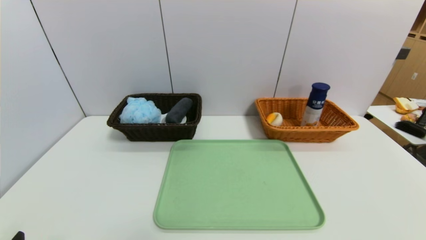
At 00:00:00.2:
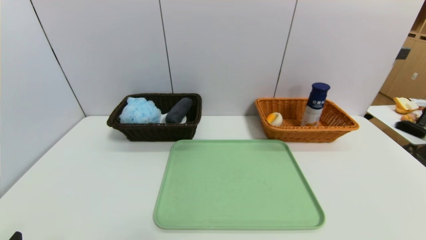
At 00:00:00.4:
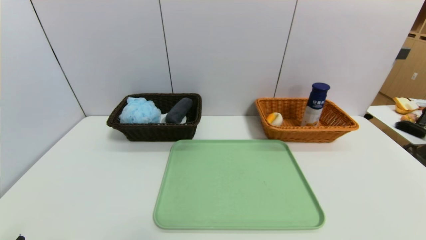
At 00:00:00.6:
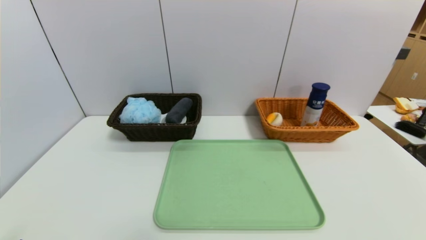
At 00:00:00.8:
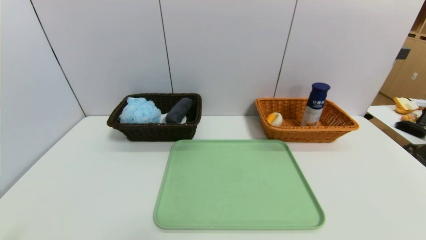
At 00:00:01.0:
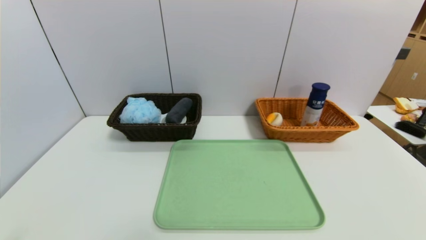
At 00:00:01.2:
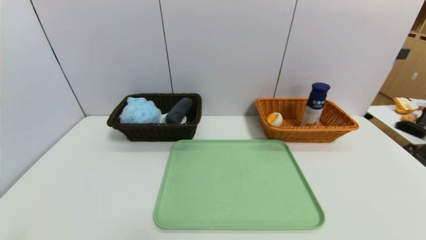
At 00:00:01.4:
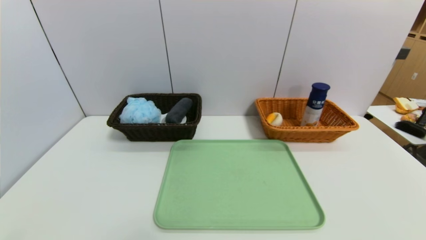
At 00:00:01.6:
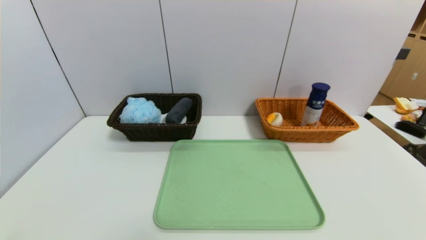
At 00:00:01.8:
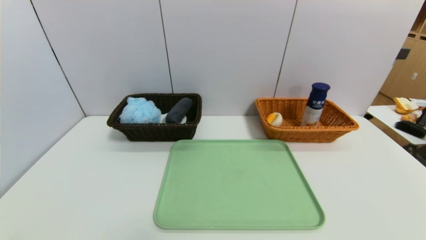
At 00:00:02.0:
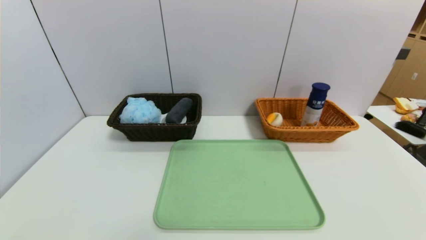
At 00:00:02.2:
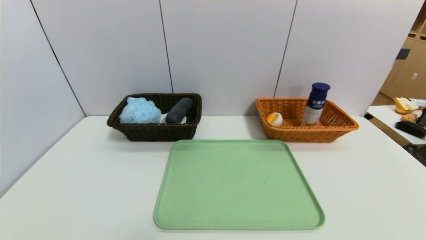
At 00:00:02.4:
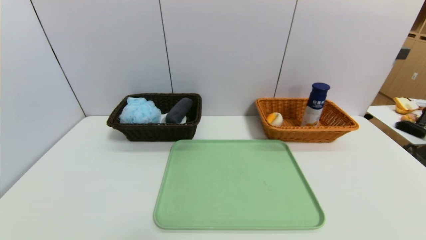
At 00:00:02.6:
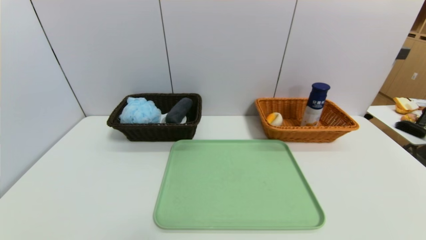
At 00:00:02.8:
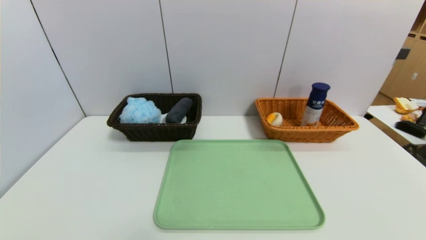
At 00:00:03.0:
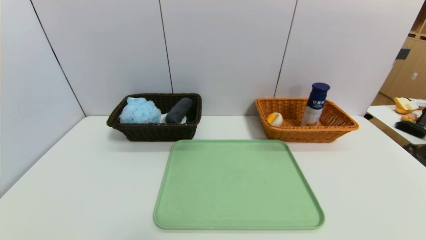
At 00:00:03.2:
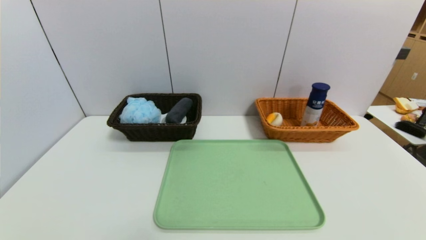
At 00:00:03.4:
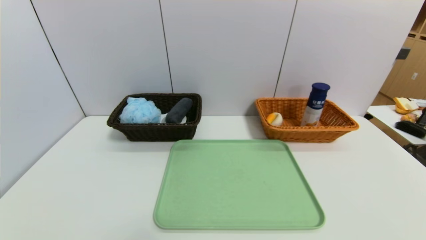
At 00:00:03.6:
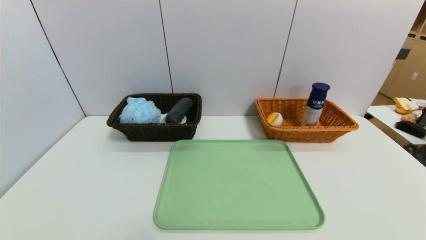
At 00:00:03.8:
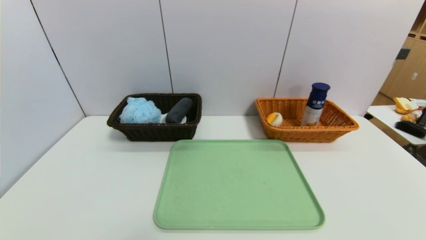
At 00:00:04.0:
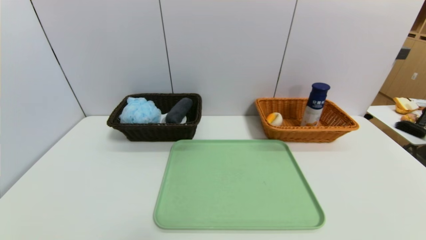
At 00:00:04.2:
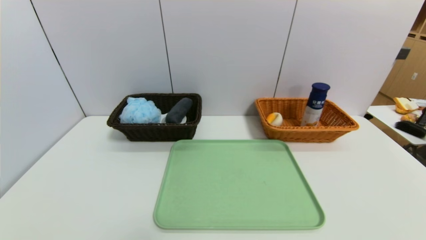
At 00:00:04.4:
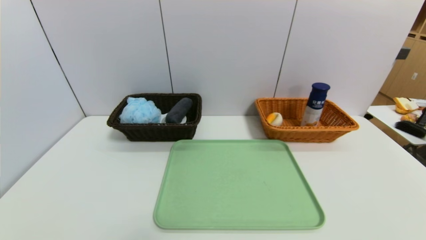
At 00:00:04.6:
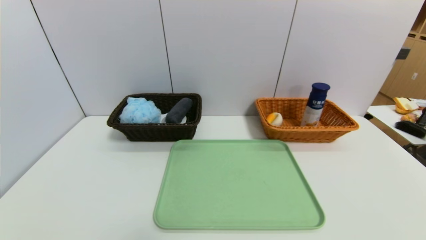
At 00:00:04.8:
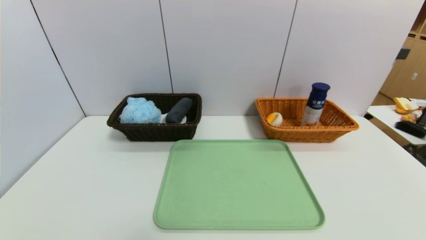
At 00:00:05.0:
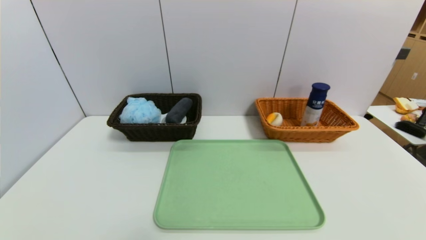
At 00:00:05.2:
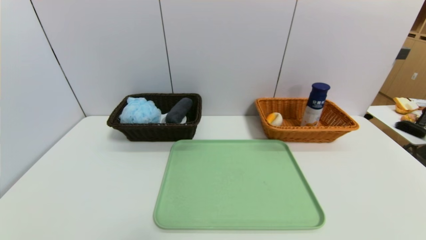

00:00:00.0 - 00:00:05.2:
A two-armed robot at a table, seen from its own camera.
Task of the whole recording: place the food in the right basket with the right gripper, and place the non food items in the left basket with the left gripper.
00:00:03.4 - 00:00:05.2: Both grippers stay put.
